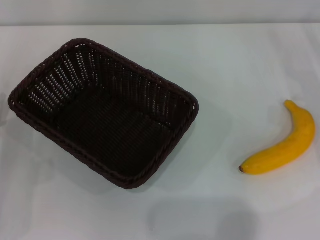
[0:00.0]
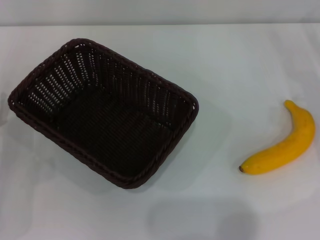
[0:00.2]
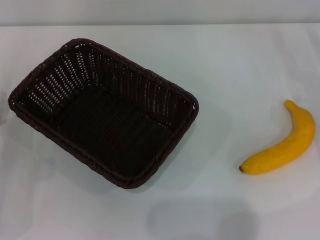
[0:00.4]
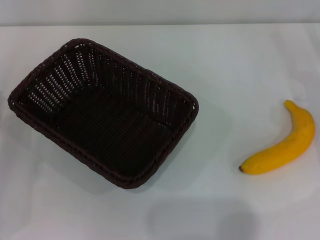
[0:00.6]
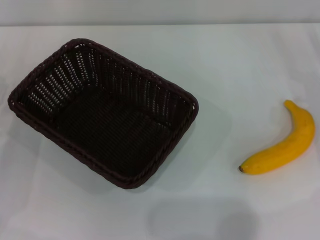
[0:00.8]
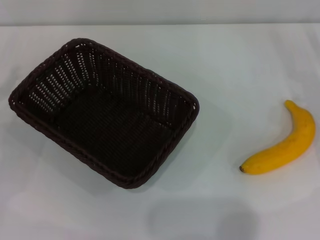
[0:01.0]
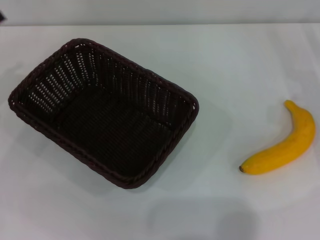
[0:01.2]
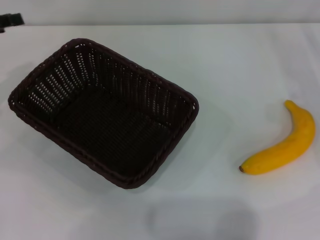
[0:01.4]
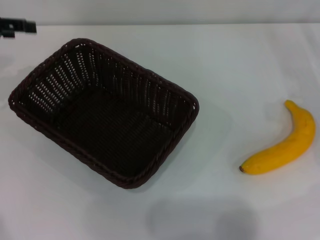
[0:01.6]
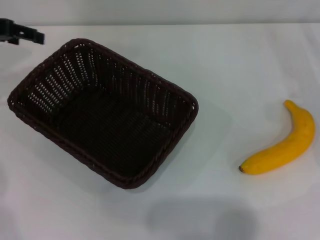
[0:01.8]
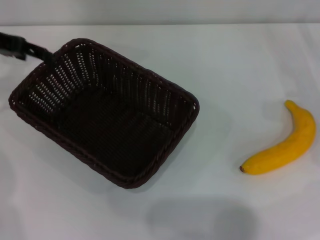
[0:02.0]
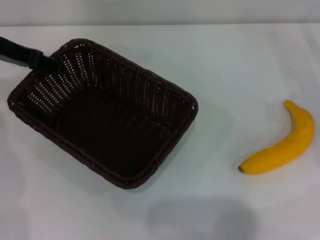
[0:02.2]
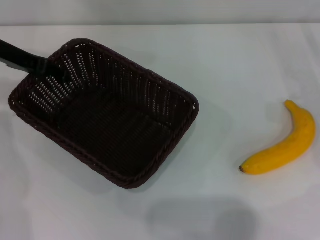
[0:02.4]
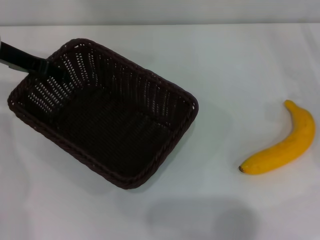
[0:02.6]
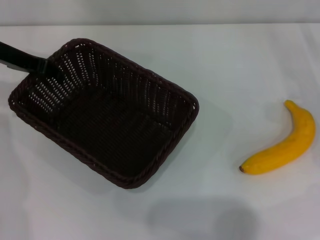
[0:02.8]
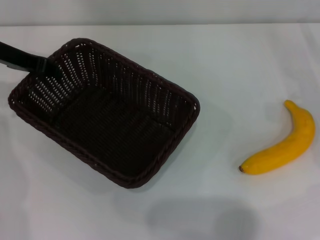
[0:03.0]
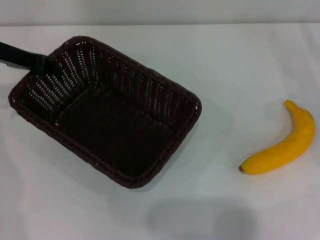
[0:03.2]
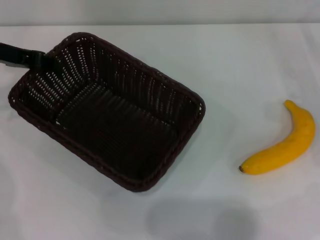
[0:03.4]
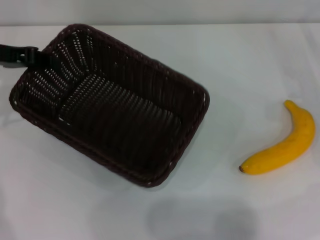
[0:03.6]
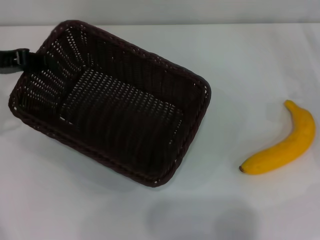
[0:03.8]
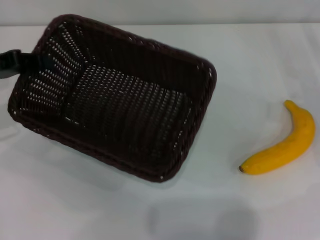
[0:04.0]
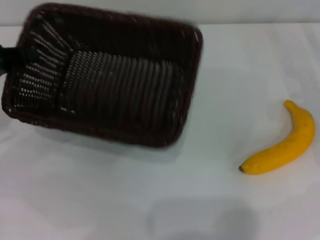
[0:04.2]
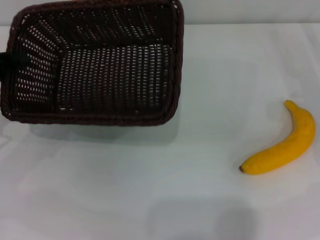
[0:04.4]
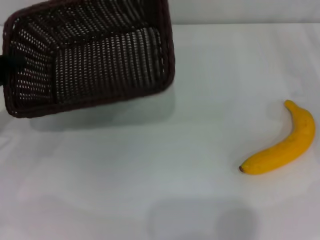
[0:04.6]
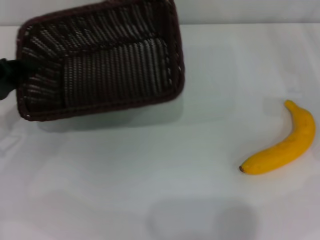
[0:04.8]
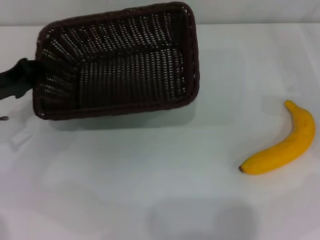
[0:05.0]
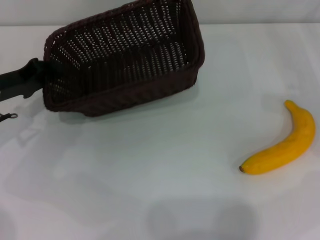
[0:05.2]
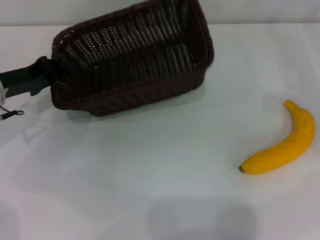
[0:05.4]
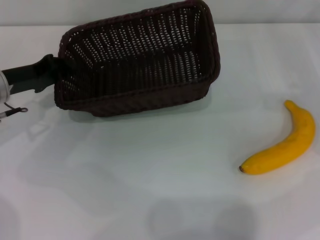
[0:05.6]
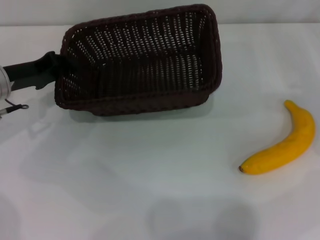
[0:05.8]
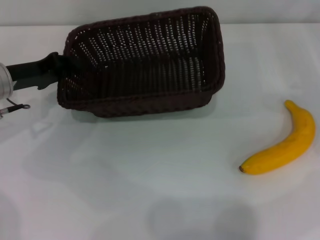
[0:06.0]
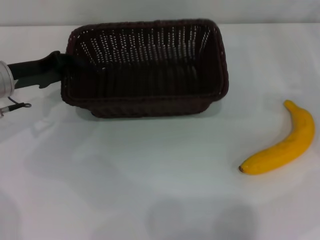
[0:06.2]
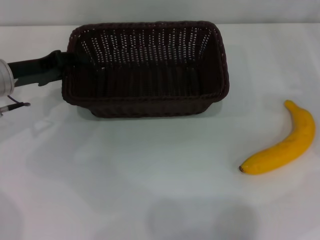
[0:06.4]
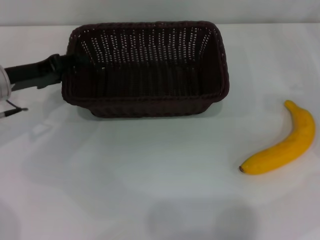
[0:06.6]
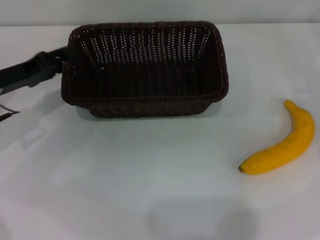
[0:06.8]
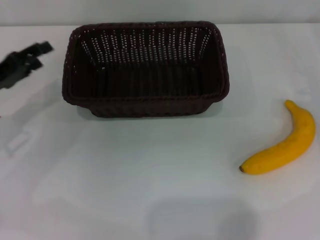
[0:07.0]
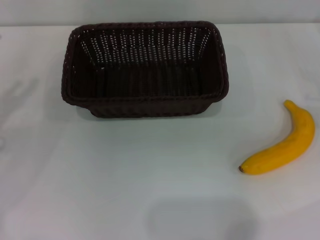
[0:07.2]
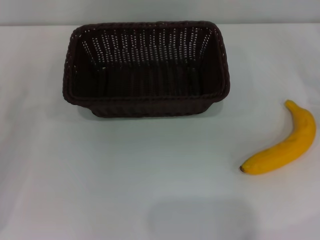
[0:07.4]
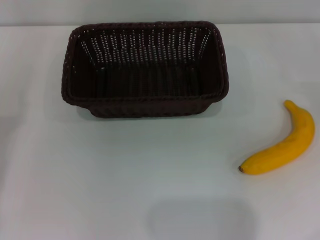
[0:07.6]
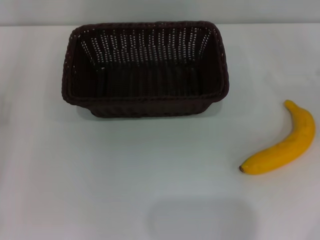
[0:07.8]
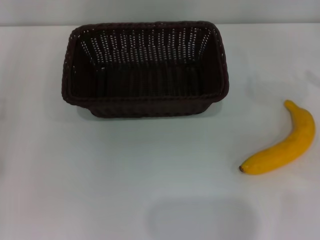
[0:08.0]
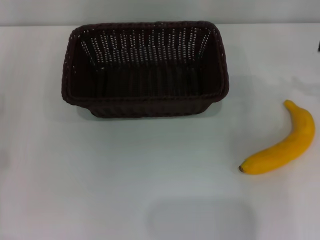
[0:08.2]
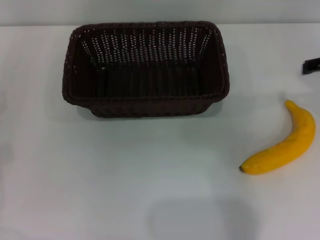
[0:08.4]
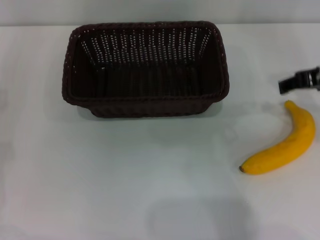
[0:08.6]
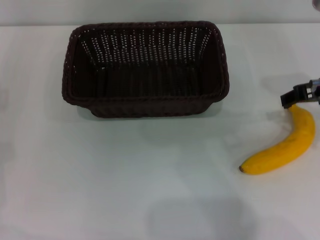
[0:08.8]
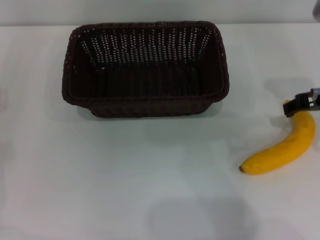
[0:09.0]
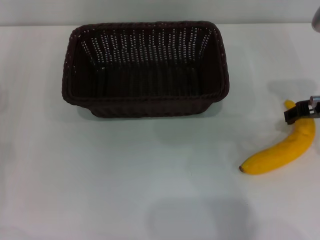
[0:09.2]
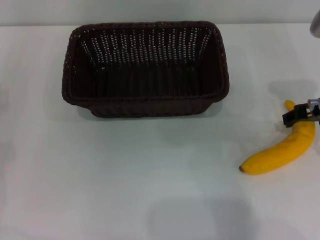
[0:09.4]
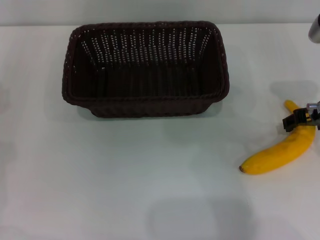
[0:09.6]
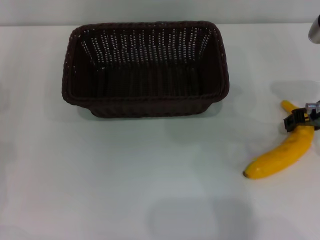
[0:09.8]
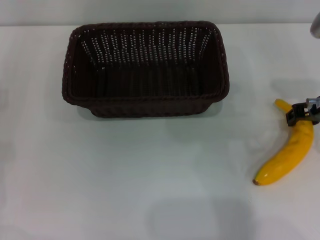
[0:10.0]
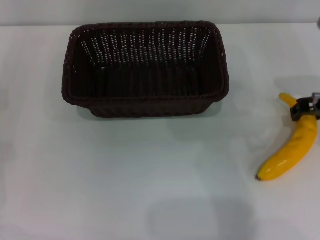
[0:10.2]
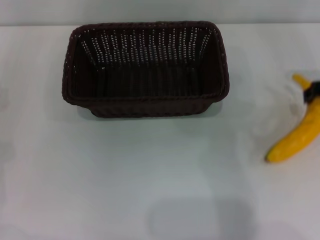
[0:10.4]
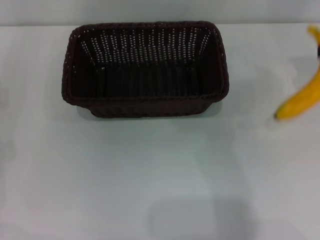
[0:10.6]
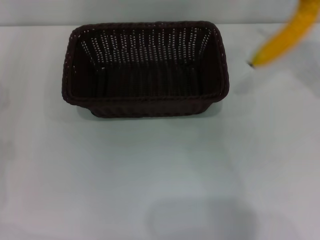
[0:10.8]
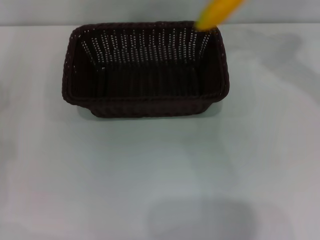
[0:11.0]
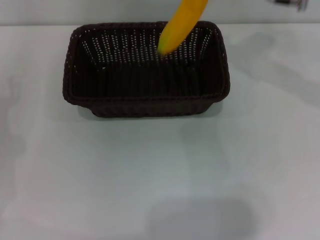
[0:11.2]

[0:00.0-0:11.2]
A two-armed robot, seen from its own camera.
Step, 0:00.0 to 0:04.0: Pick up the dark basket with the left gripper.
Step, 0:04.2 to 0:06.8: Place the dark basket in the center of view with the left gripper.
Step, 0:07.0 to 0:10.6: Pick up the banana with the right gripper.
0:00.0 to 0:01.6: The left gripper moves upward and forward, approximately 25 cm.
0:01.6 to 0:03.2: The left gripper heads to the right, covering approximately 5 cm, and closes.
0:03.2 to 0:04.8: The left gripper is displaced backward, downward and to the left by some 15 cm.
0:04.8 to 0:06.4: The left gripper moves to the right, approximately 5 cm.
0:06.4 to 0:08.0: The left gripper goes roughly 20 cm backward, to the left and downward, and opens up.
0:08.0 to 0:09.6: The right gripper is displaced to the left by approximately 15 cm.
0:09.6 to 0:11.2: The right gripper goes approximately 15 cm forward, upward and to the left, and closes.

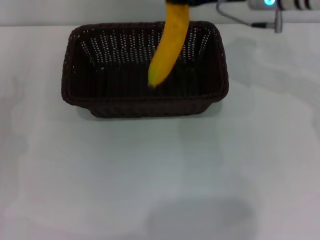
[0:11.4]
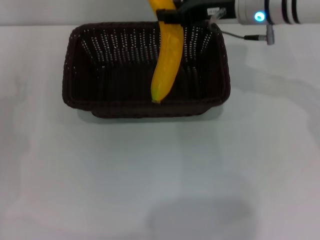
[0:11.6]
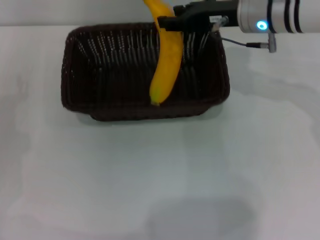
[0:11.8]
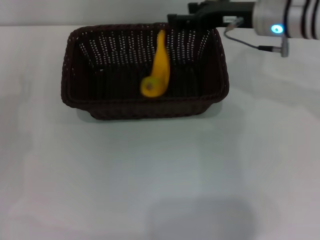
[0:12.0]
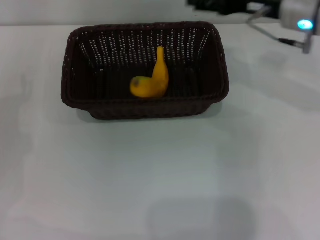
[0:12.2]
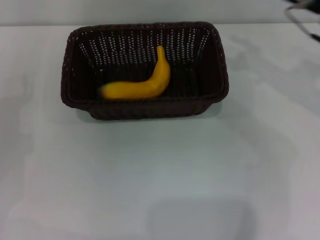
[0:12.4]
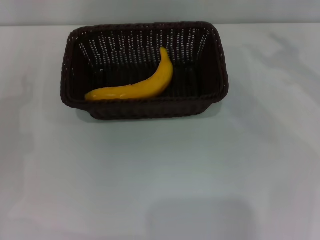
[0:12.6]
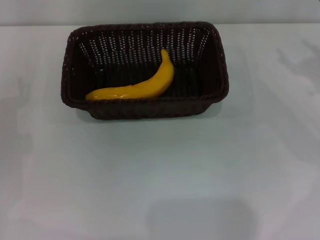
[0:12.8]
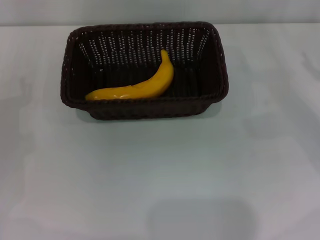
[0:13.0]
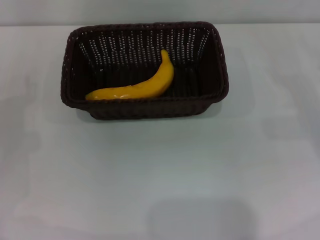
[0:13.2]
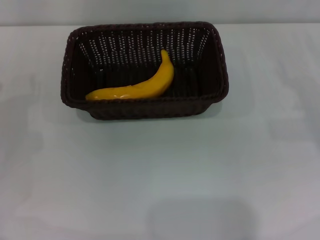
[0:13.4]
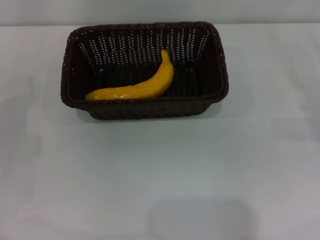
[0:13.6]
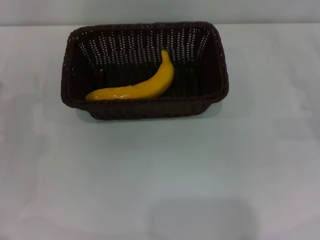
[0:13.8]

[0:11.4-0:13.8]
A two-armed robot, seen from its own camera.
0:11.4 to 0:12.6: The right gripper is displaced to the right and backward by some 15 cm, and opens its fingers.
